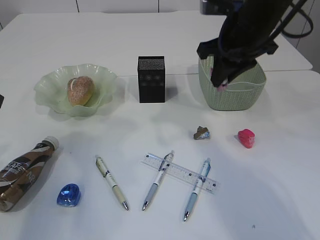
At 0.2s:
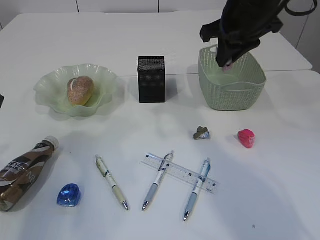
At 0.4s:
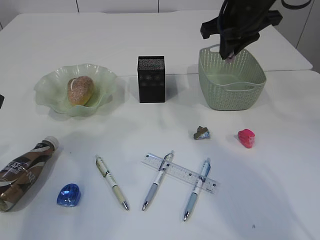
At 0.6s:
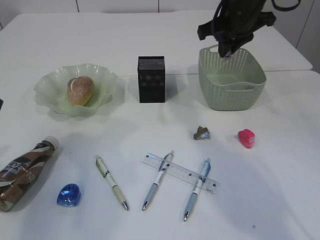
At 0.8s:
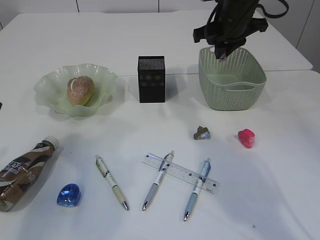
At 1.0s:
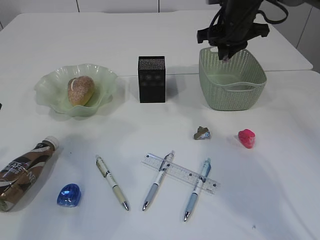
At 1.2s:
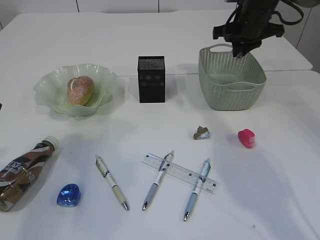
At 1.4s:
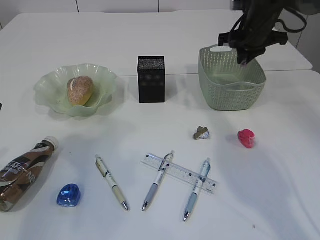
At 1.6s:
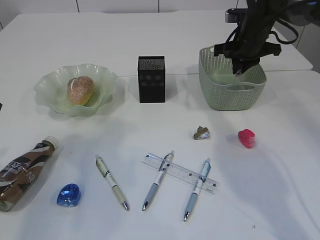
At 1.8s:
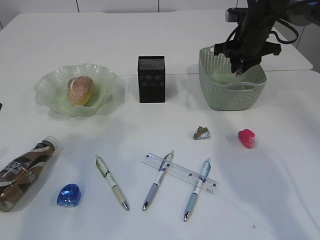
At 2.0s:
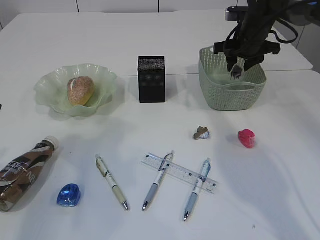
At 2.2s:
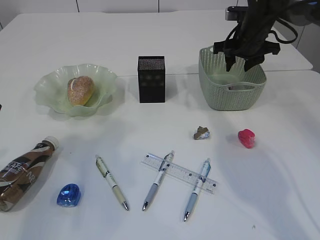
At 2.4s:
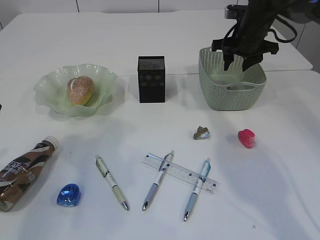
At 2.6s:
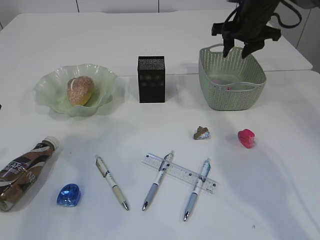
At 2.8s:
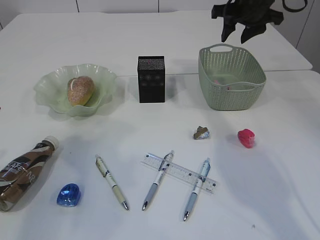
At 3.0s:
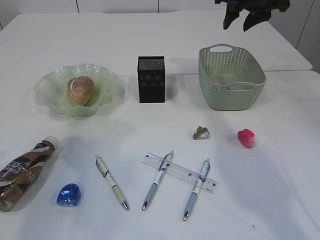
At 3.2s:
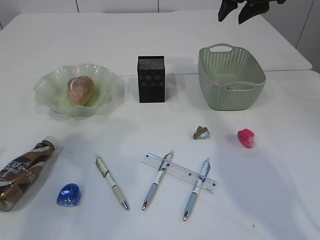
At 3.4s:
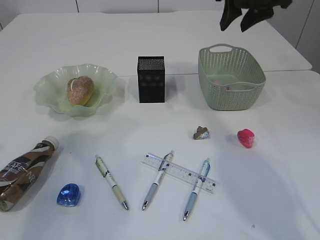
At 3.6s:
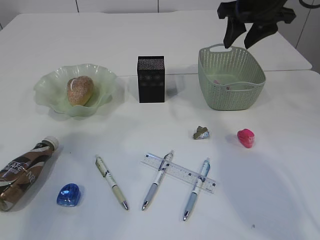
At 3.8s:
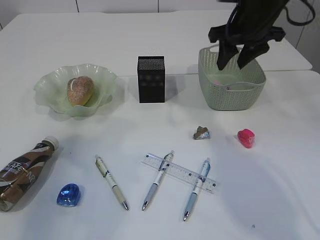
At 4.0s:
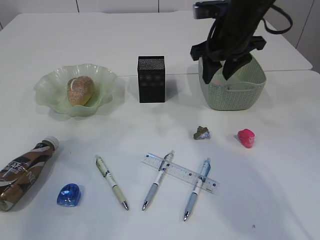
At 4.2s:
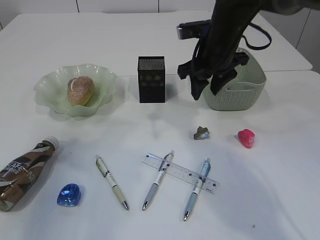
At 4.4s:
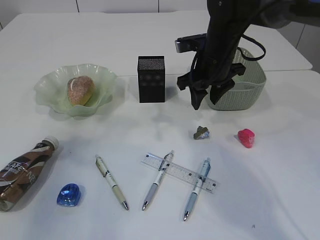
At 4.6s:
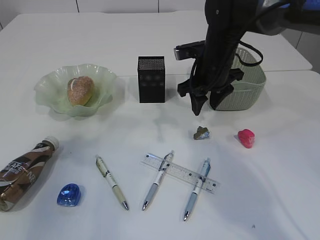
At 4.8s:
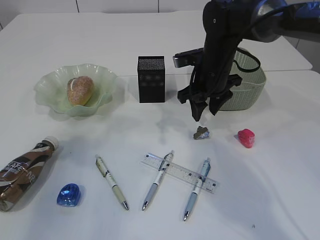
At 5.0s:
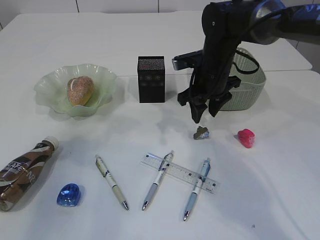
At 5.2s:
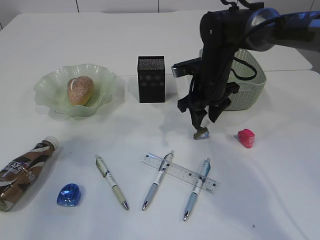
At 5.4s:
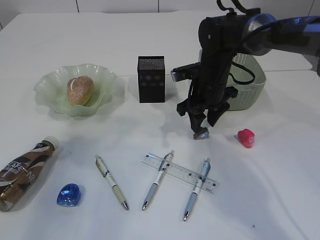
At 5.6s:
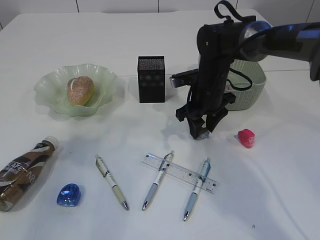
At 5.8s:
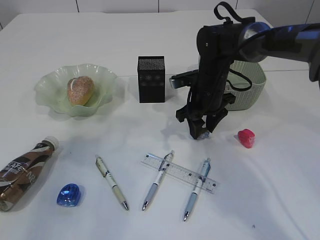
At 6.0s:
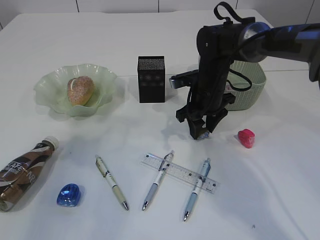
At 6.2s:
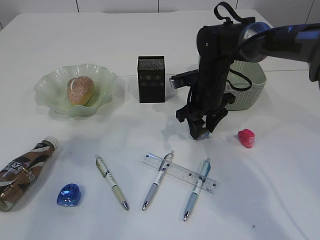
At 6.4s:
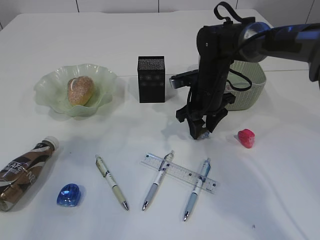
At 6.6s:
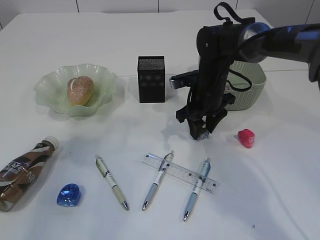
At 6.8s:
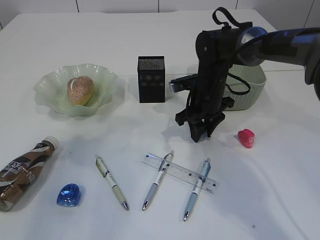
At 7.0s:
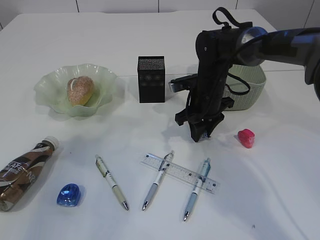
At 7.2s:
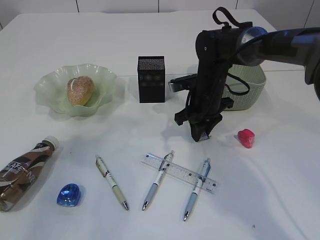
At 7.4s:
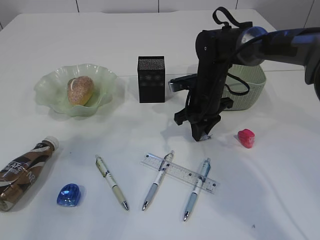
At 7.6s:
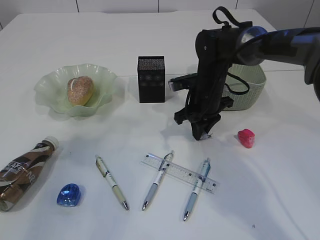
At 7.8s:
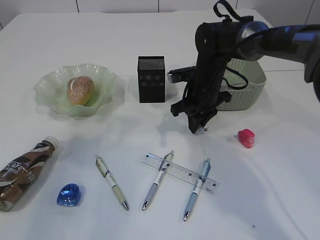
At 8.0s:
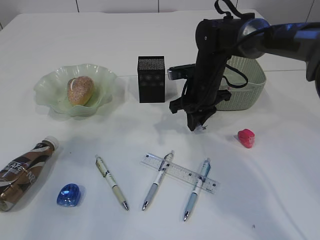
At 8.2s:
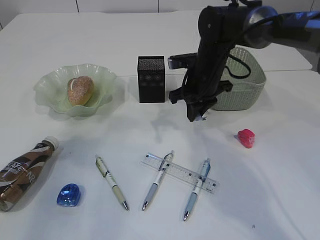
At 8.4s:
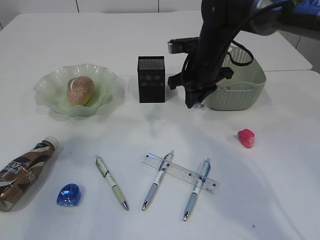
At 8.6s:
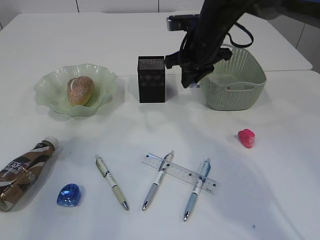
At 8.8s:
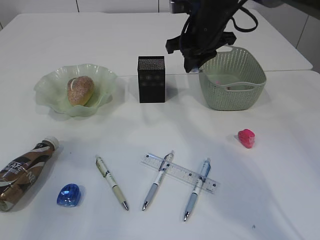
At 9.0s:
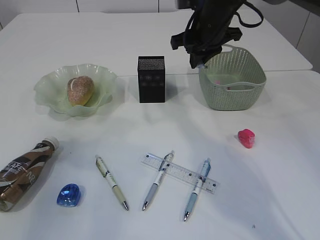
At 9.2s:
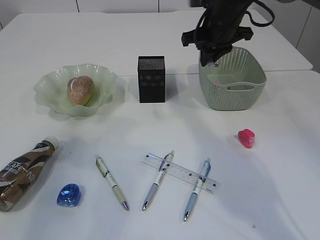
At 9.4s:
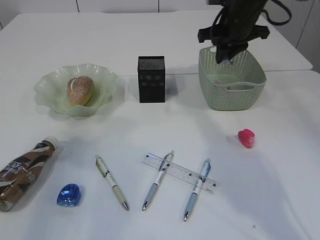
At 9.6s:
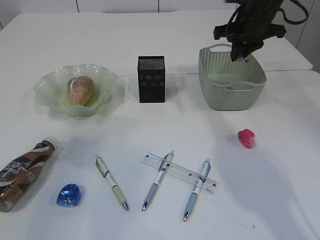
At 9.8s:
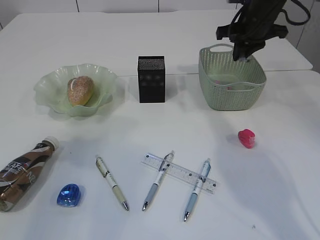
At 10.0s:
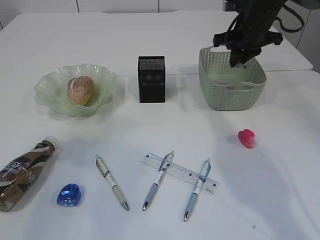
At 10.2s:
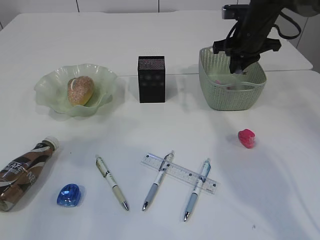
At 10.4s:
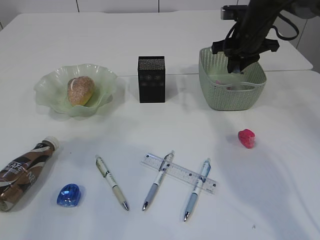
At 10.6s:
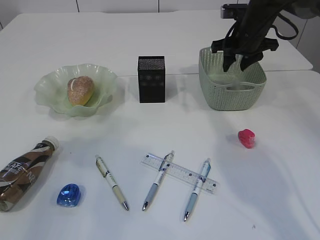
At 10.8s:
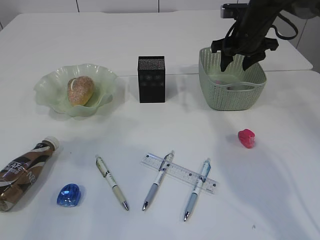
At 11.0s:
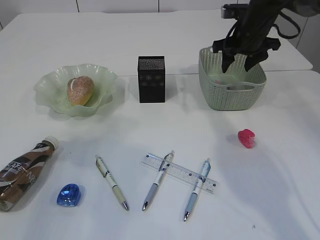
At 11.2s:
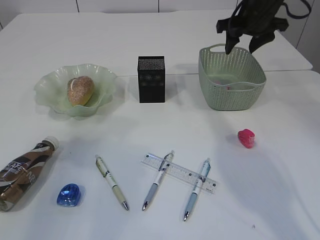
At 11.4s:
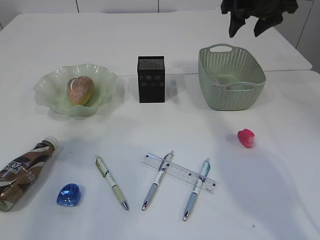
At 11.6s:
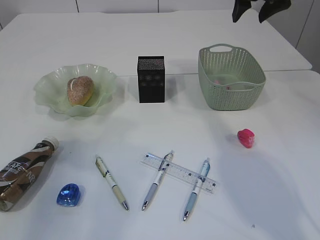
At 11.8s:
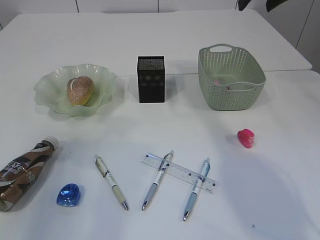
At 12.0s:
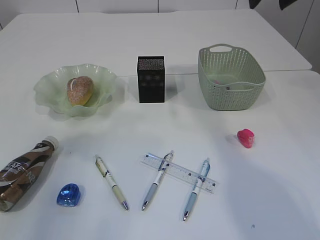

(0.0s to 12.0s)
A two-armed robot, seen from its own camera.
Step, 0.0s - 2.8s: Place the plastic in the basket.
Step, 3.0s - 8.2s: Pick up the waste paper.
Step, 8.4s - 11.2s: Place the waste paper in the basket.
0.0s - 1.6s: The right gripper heads forward and to the right, covering approximately 15 cm.
1.6s - 3.0s: The right gripper heads upward, covering about 10 cm, and opens.
3.0s - 4.4s: The right gripper travels downward, to the left and backward by about 15 cm.
4.4s - 6.0s: The right gripper goes about 10 cm downward.
6.0s - 7.6s: The right gripper closes.
7.6s - 9.0s: The right gripper goes roughly 15 cm upward.
9.0s - 10.4s: The right gripper heads to the right, covering some 10 cm.
10.4s - 12.0s: The right gripper is displaced upward and backward by approximately 20 cm, and opens up.

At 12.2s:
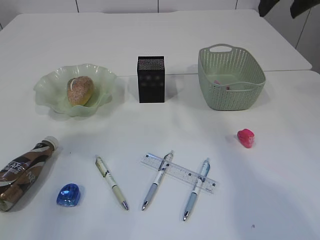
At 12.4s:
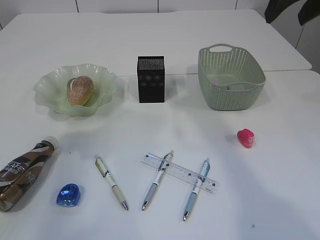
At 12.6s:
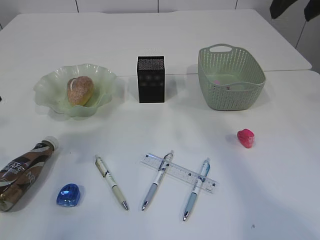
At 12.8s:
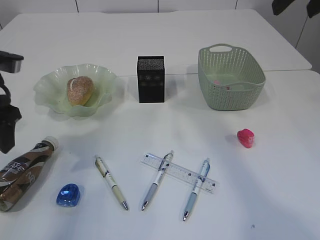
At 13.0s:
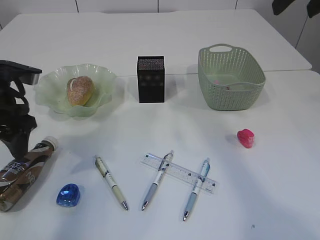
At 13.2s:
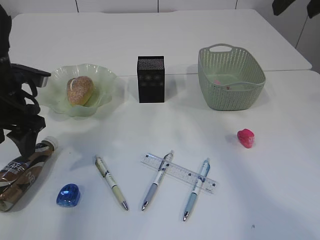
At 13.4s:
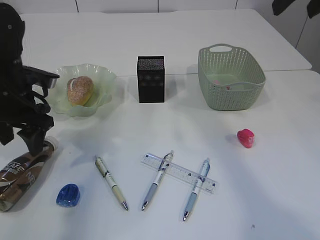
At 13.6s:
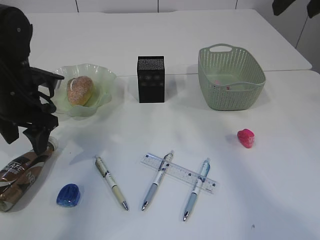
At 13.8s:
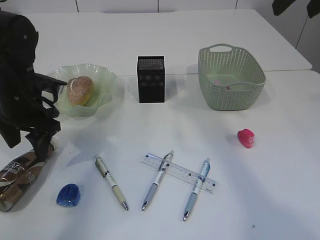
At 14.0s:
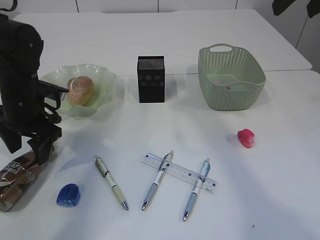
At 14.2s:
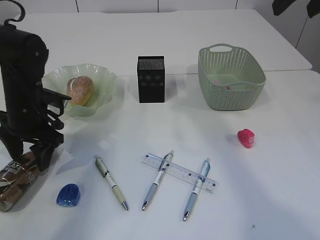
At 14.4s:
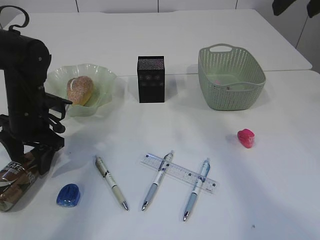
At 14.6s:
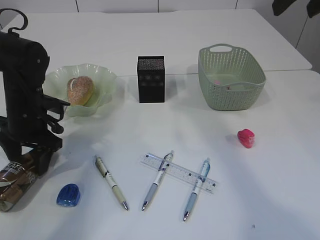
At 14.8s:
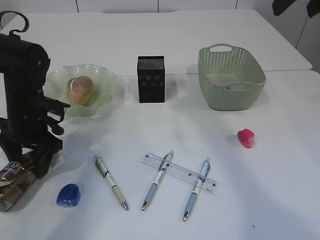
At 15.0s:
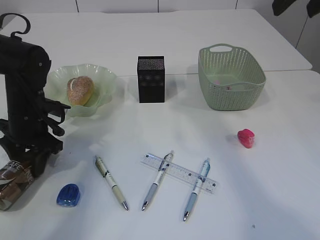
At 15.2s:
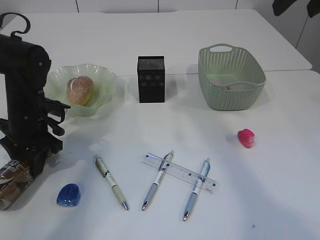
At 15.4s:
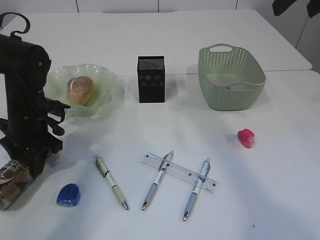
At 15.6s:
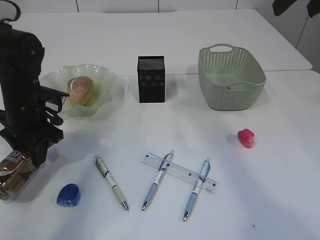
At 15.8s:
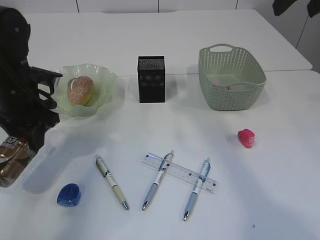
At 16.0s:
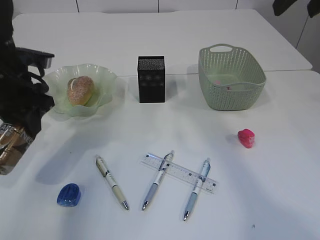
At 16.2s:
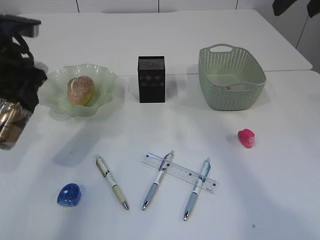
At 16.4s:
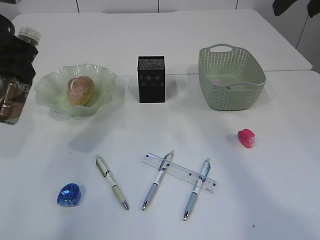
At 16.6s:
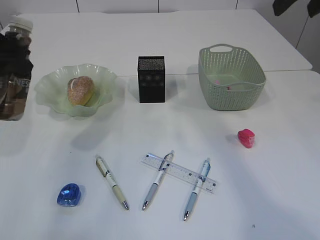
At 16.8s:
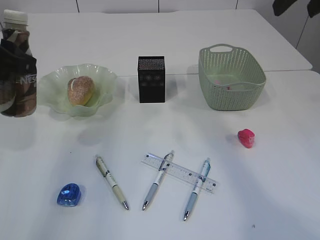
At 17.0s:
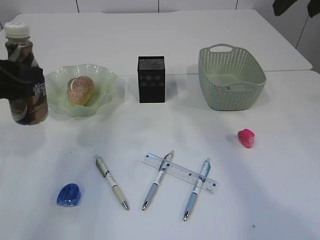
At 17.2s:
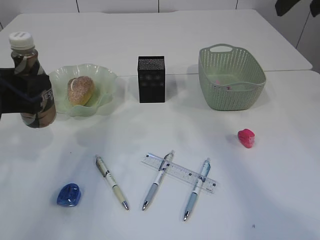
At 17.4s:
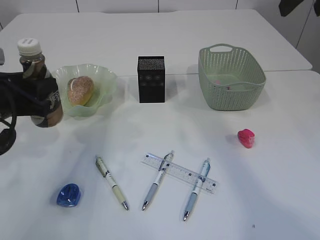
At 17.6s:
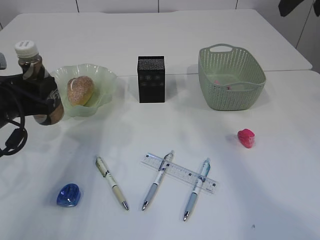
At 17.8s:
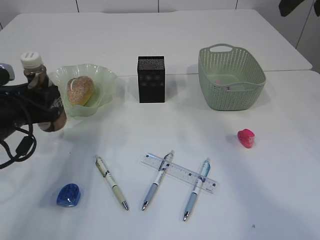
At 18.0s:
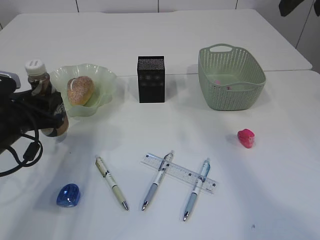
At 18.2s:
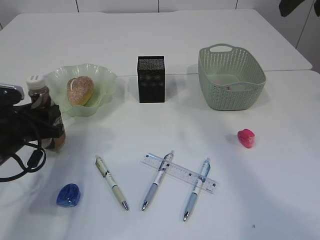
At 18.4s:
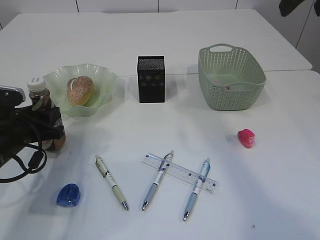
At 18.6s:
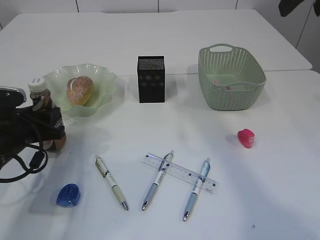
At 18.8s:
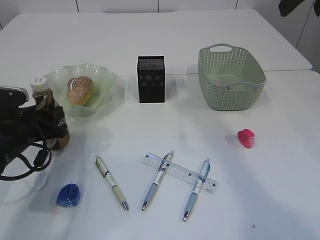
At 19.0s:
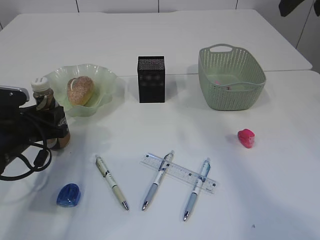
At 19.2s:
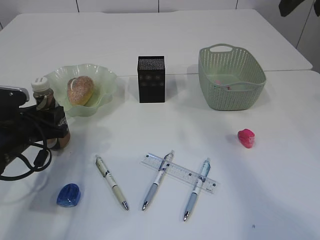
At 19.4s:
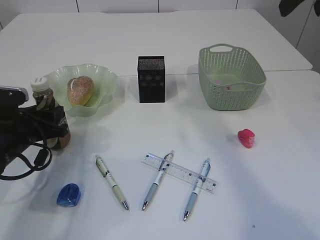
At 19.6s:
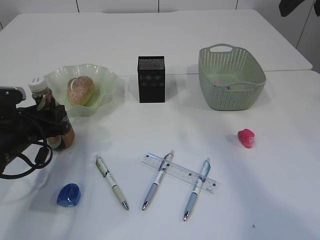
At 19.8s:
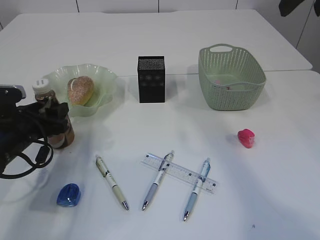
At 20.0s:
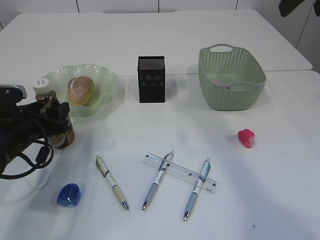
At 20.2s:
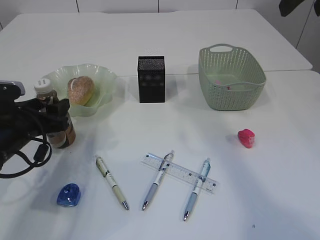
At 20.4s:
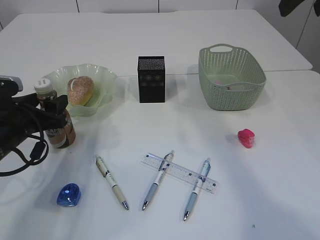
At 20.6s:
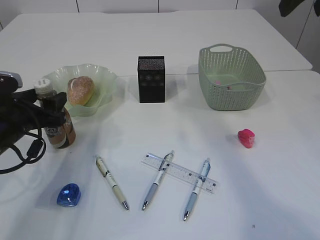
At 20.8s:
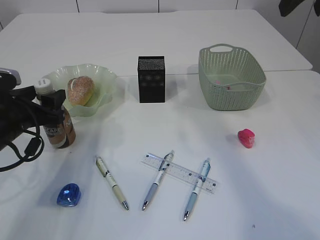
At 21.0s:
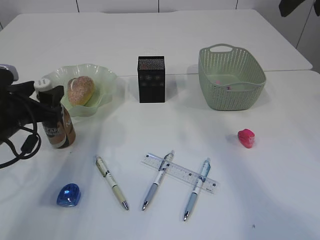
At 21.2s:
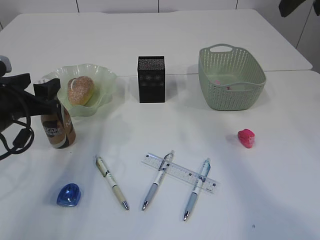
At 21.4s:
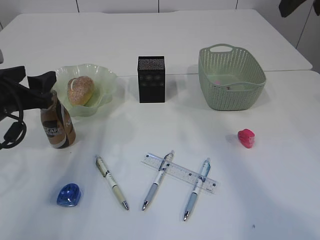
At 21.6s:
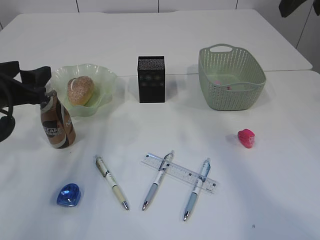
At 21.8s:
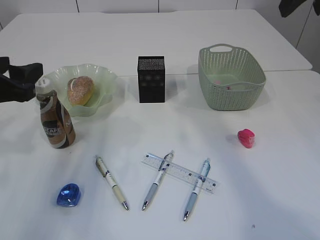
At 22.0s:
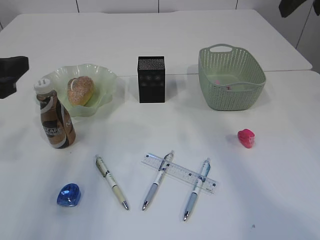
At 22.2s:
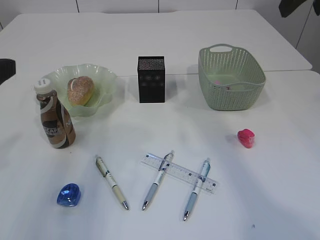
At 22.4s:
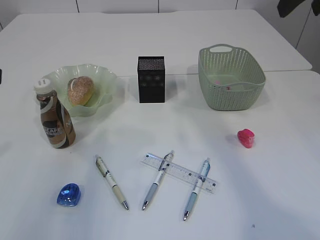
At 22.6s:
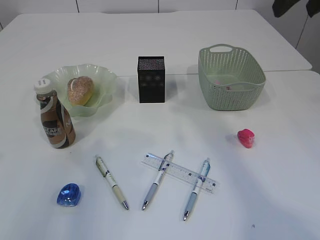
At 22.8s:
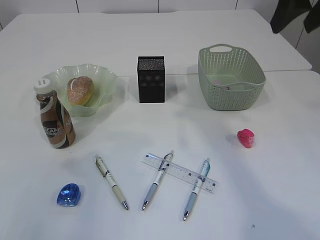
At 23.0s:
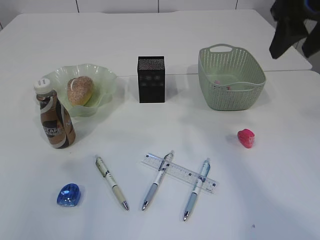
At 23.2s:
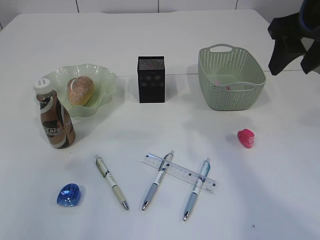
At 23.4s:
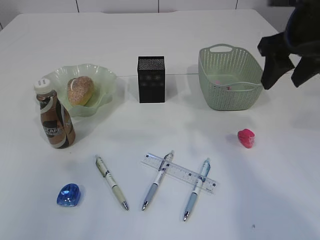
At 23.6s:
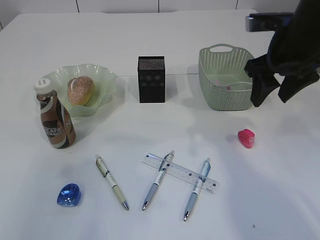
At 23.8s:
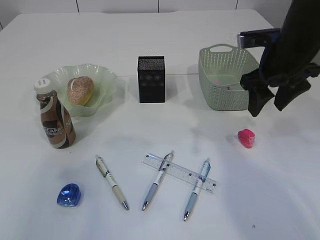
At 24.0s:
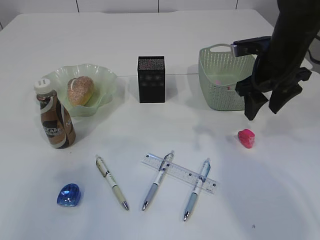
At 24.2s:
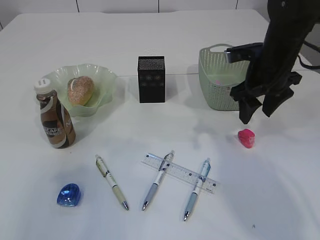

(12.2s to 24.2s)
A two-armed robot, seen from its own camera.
Step, 12.2s - 15.6s: Pick up the bottle with the left arm.
Step, 15.8s - 21.8s: Place the bottle.
12.2s - 13.8s: The right gripper shifts by some 5 cm. Meanwhile the left gripper goes approximately 20 cm downward and forward.
13.8s - 15.2s: The left gripper is displaced downward by approximately 5 cm, and closes.
15.2s - 16.6s: The left gripper shifts approximately 20 cm upward.
16.6s - 18.2s: The left gripper is displaced downward by roughly 20 cm.
18.2s - 19.8s: The left gripper opens up.
19.8s - 21.2s: The left gripper moves upward, about 5 cm.
21.2s - 22.6s: The left gripper travels upward and backward by about 20 cm.
22.6s - 24.2s: The right gripper goes roughly 20 cm downward.
